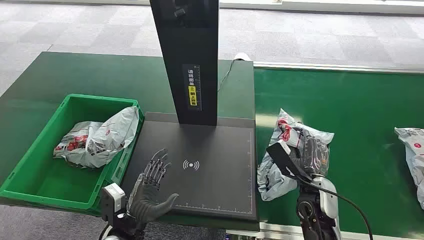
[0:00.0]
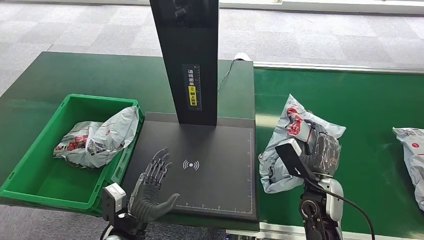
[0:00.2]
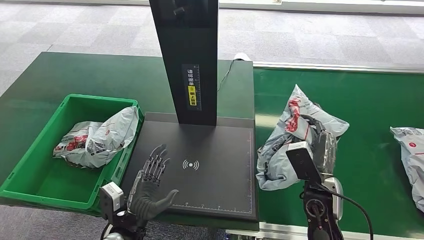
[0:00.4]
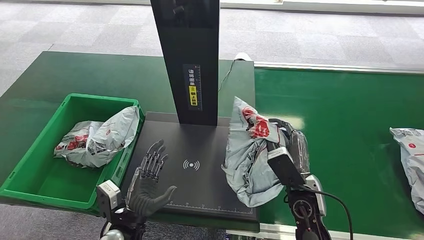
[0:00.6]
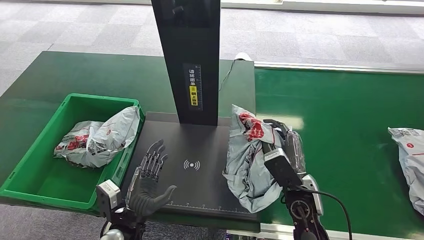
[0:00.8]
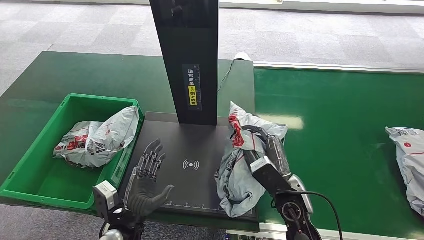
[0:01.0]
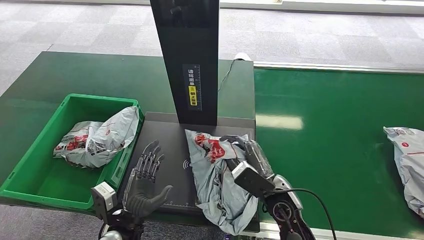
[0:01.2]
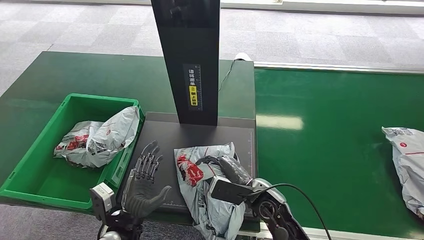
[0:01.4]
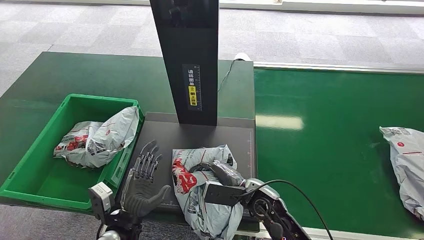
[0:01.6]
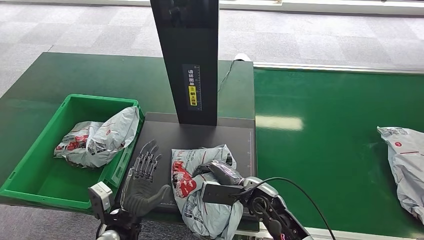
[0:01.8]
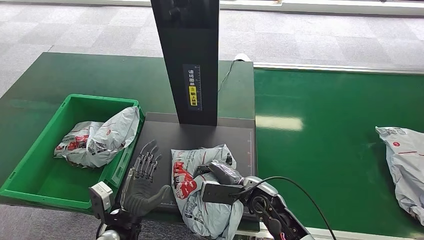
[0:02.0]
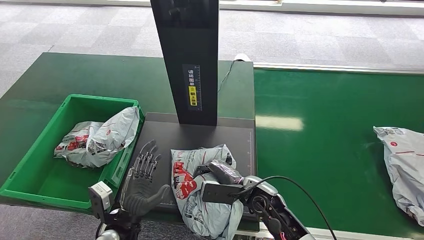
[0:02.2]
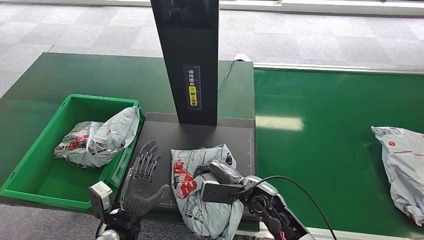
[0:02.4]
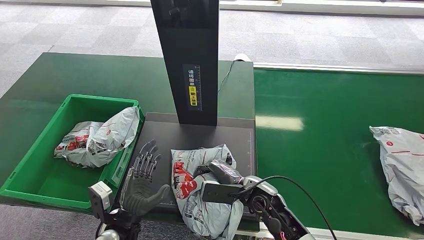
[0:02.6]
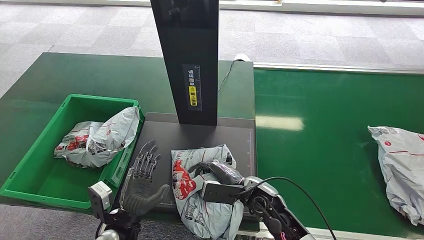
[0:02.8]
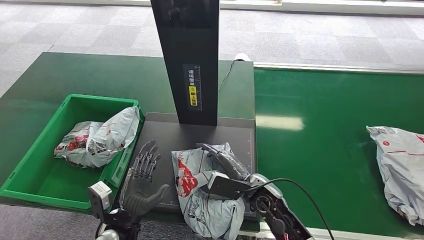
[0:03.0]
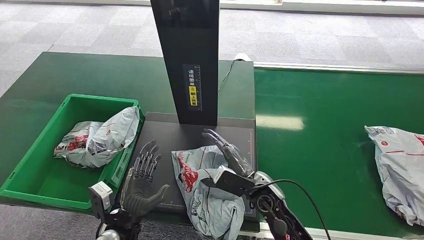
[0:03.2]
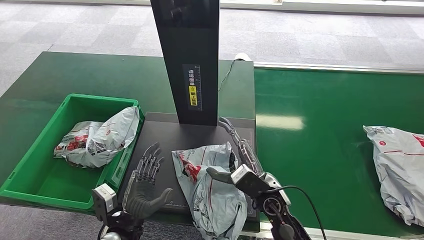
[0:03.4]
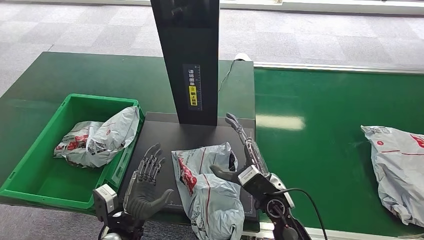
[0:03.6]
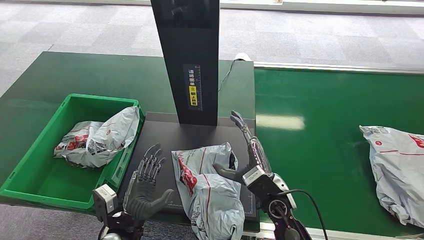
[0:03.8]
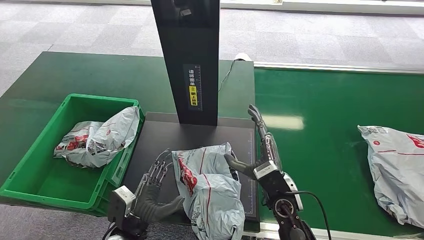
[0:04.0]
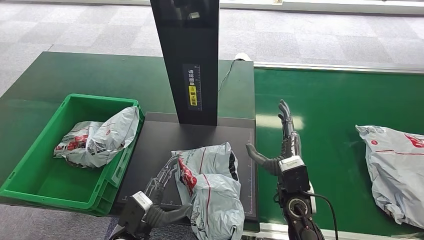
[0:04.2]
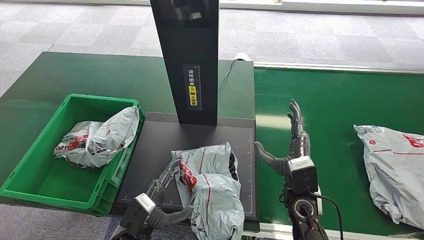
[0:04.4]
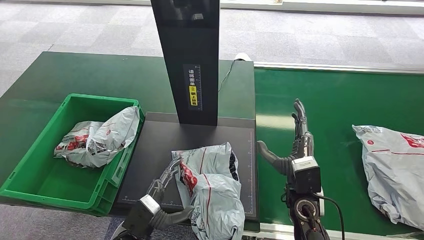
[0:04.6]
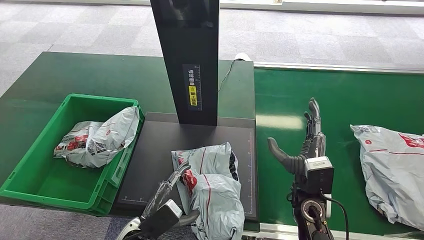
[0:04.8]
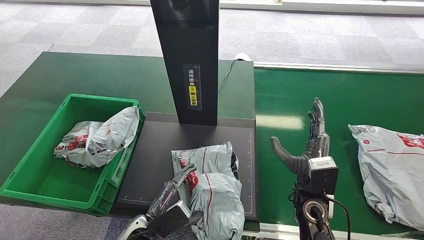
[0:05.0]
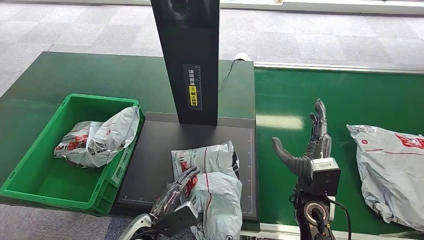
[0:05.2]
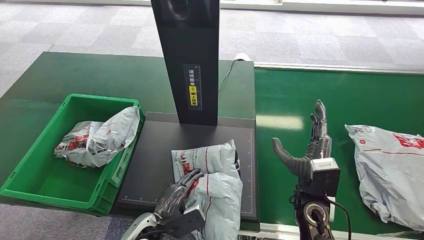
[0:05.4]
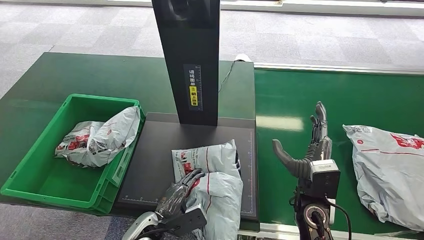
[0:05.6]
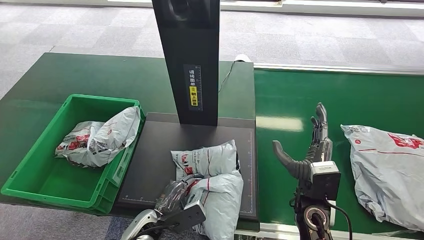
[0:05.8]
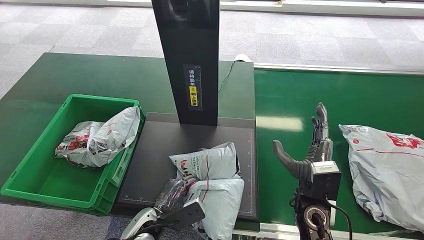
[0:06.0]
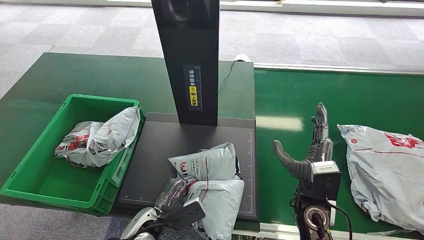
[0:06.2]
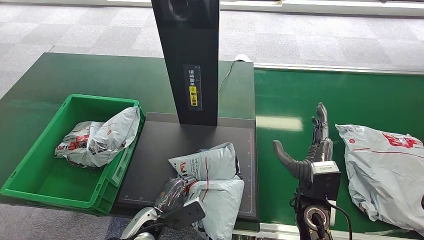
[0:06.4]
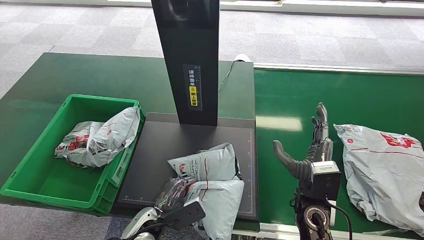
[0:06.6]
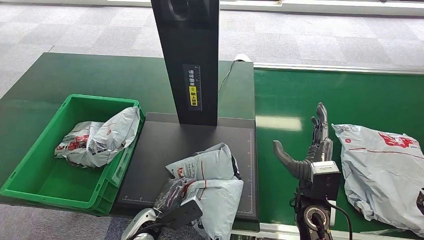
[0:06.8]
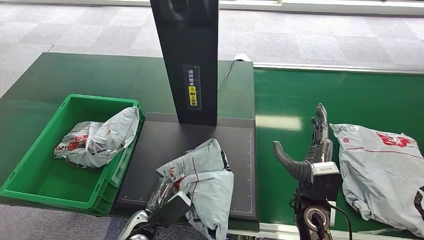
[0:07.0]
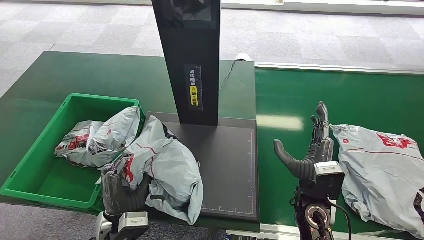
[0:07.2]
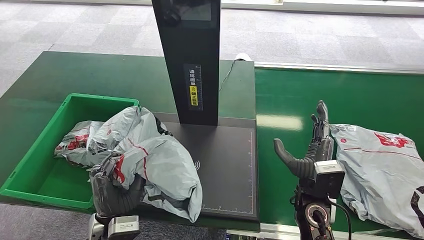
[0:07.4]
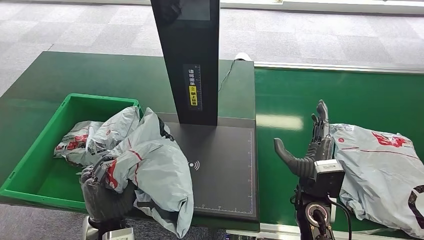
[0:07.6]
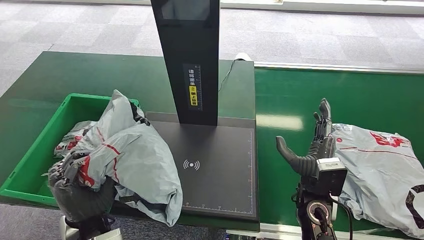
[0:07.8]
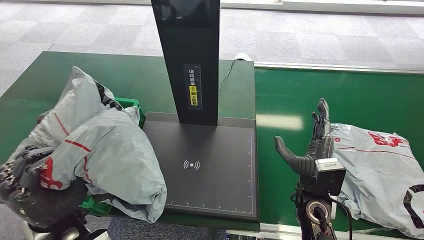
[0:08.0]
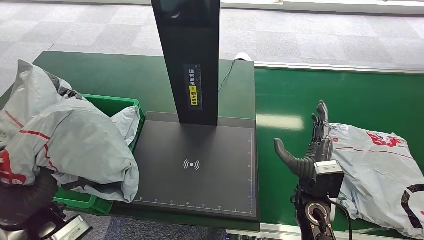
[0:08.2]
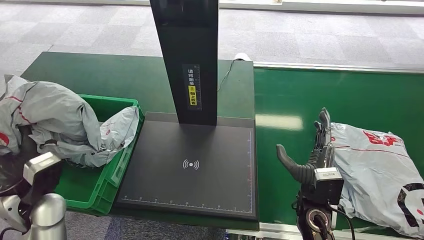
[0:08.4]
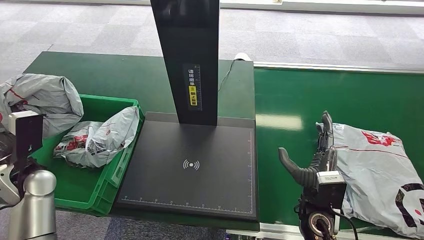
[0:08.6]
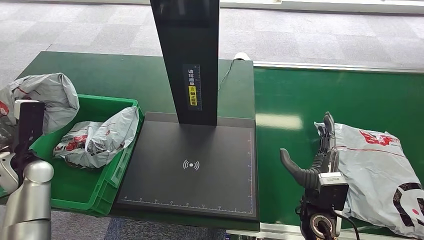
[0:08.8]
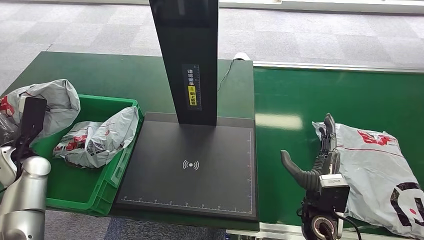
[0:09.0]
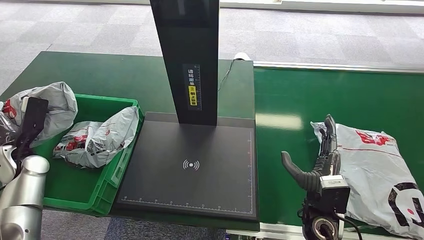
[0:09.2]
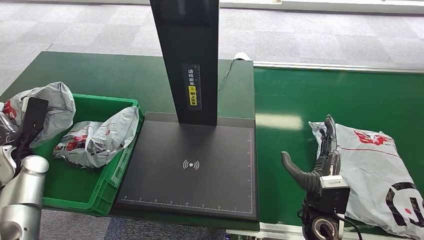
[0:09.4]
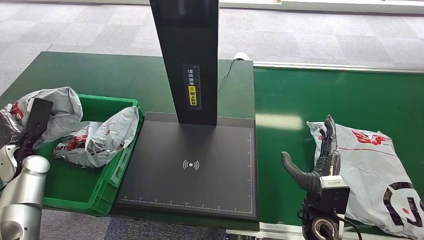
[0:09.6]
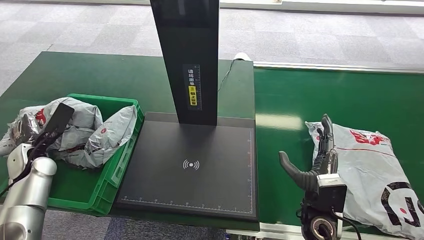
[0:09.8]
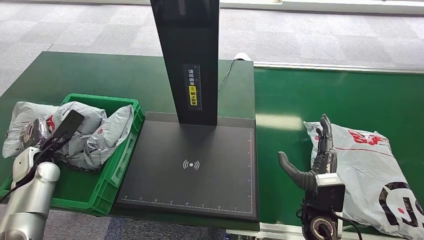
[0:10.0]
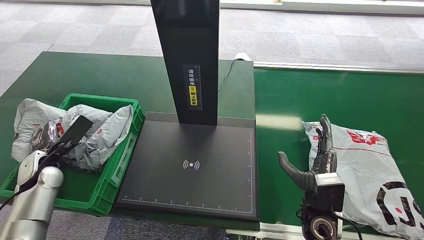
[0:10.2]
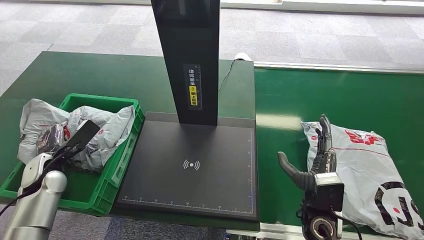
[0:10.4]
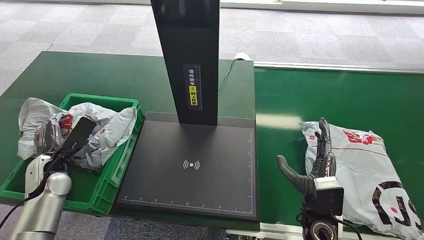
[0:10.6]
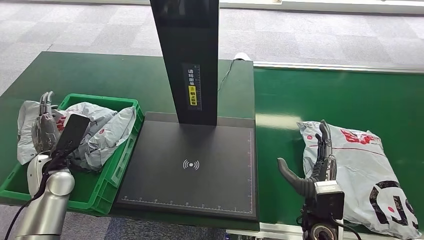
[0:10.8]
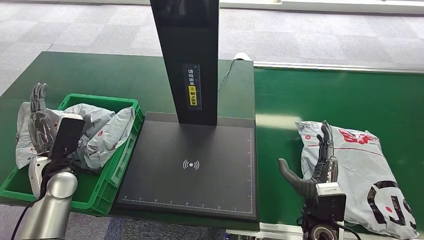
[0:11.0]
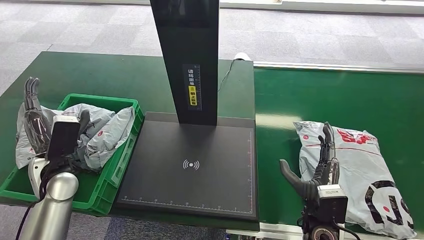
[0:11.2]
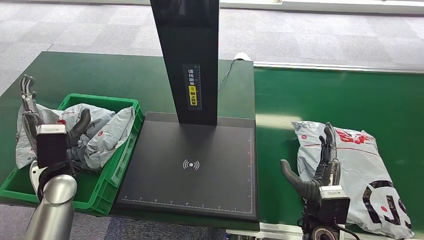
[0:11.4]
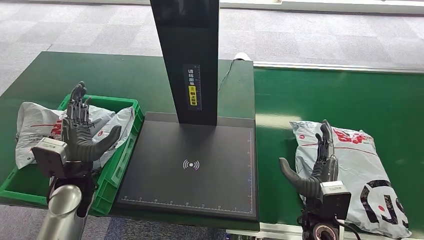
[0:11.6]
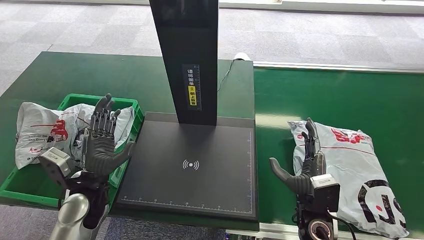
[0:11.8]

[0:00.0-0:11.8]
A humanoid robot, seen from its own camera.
0:01.4 to 0:03.0: The hands stay close to where they were, moving slightly.
0:03.0 to 0:04.4: The right hand is displaced to the right by approximately 10 cm.
0:08.8 to 0:10.4: The left hand heads downward, covering about 5 cm.
0:10.4 to 0:11.8: The left hand travels to the right by approximately 15 cm.
